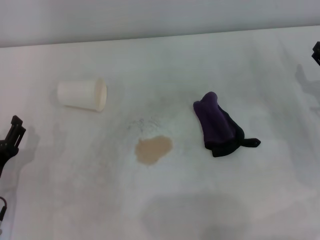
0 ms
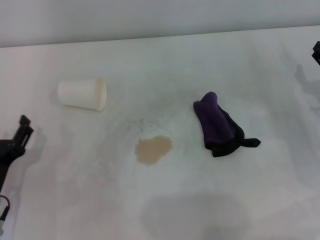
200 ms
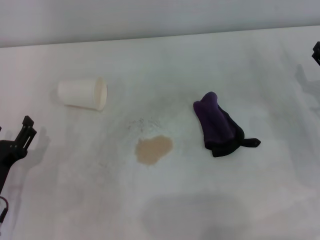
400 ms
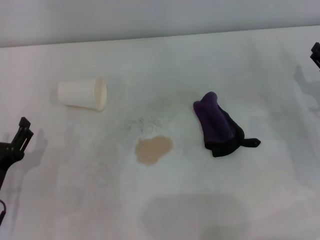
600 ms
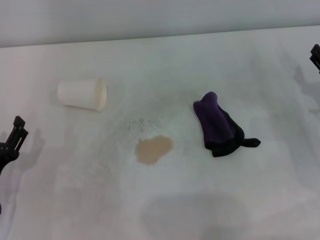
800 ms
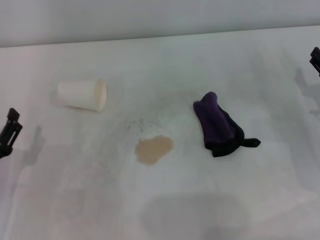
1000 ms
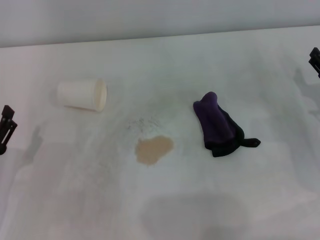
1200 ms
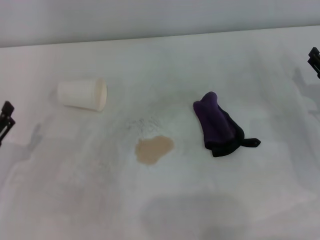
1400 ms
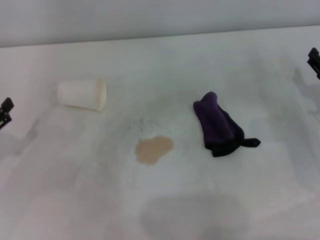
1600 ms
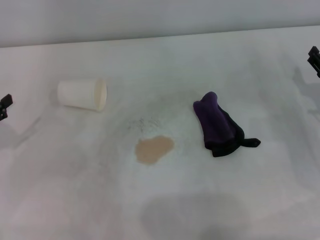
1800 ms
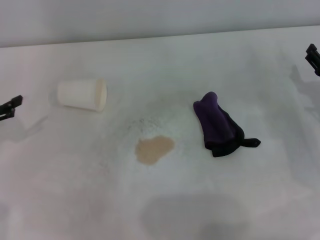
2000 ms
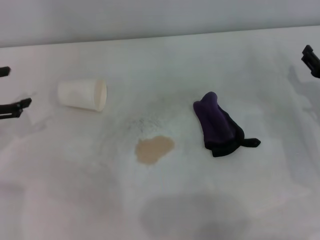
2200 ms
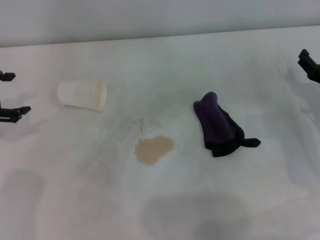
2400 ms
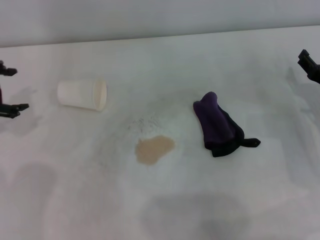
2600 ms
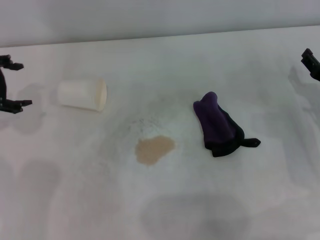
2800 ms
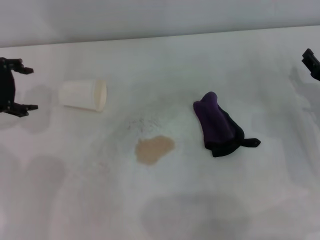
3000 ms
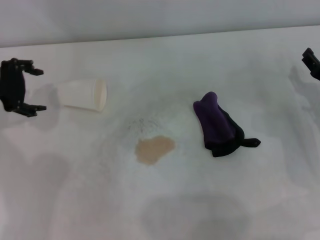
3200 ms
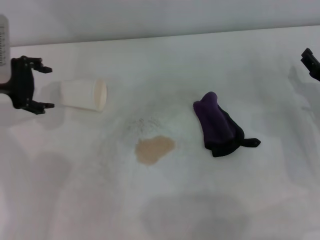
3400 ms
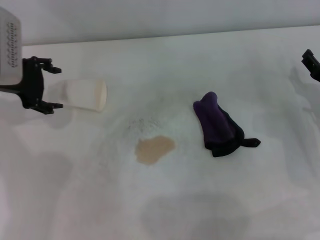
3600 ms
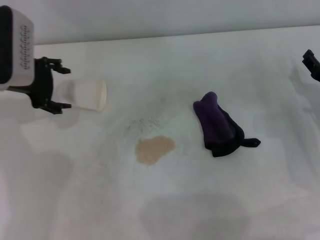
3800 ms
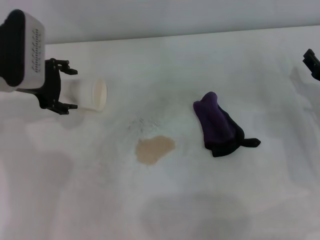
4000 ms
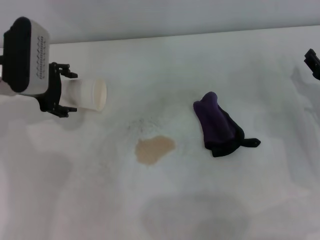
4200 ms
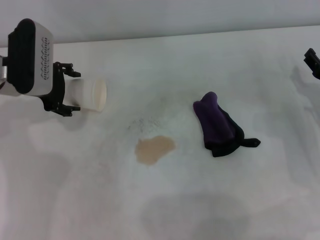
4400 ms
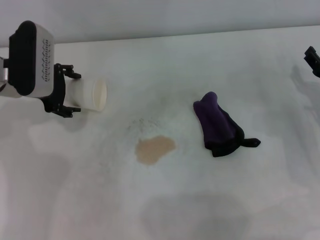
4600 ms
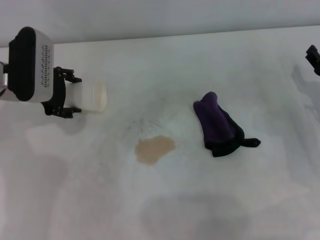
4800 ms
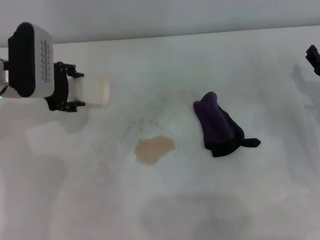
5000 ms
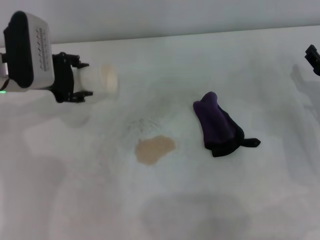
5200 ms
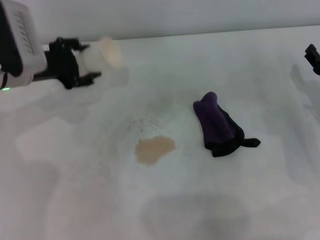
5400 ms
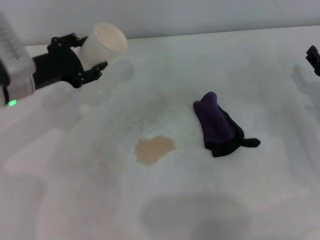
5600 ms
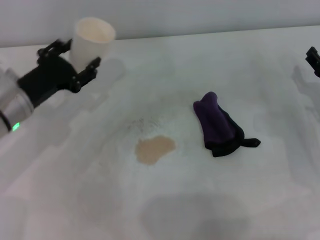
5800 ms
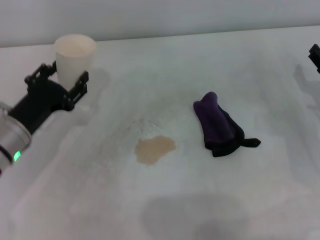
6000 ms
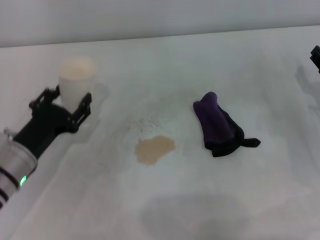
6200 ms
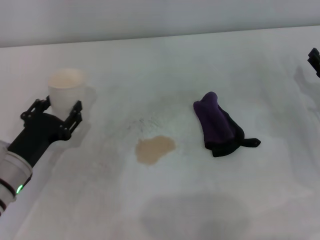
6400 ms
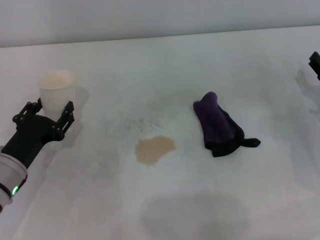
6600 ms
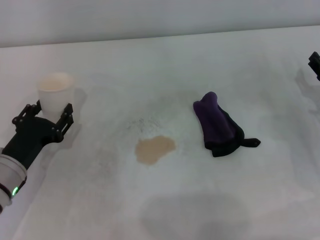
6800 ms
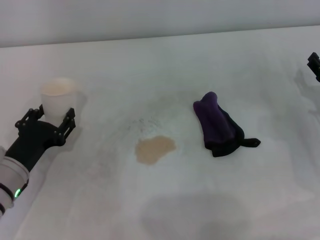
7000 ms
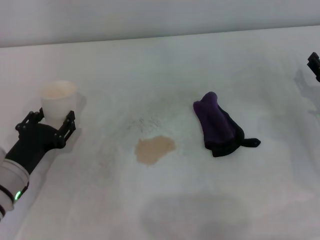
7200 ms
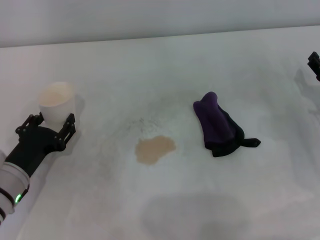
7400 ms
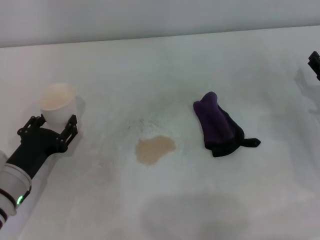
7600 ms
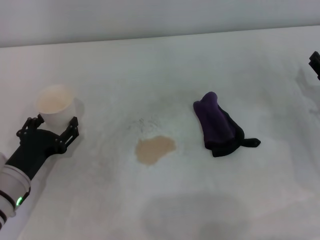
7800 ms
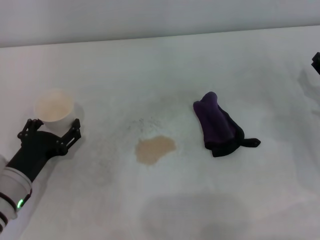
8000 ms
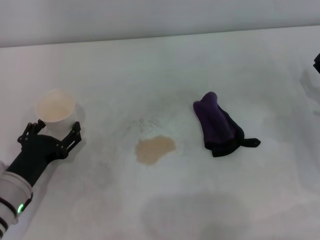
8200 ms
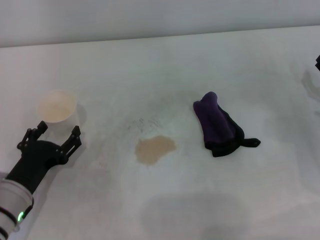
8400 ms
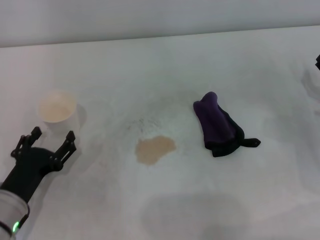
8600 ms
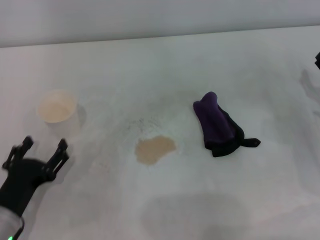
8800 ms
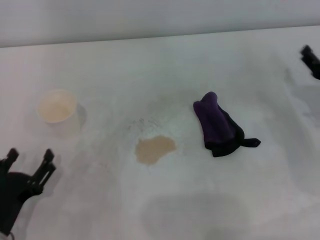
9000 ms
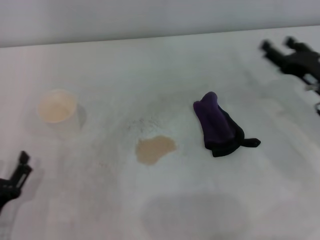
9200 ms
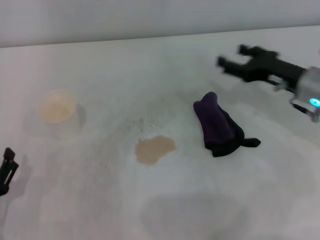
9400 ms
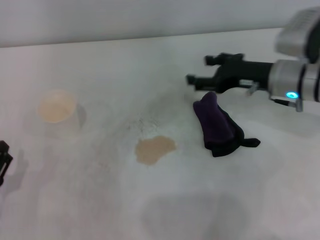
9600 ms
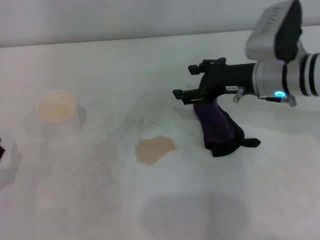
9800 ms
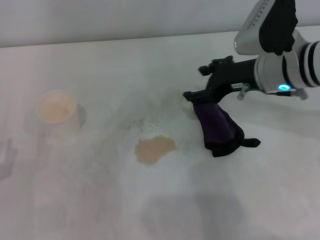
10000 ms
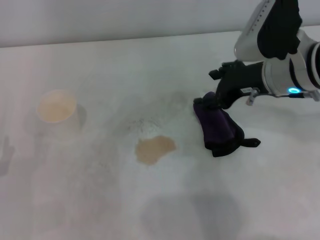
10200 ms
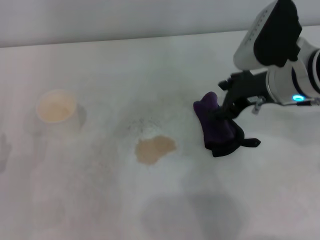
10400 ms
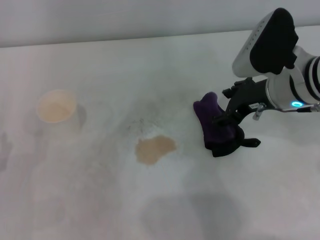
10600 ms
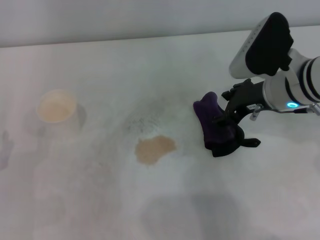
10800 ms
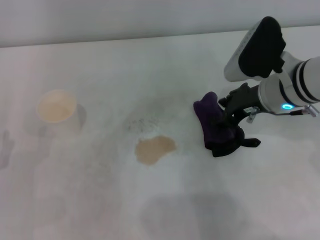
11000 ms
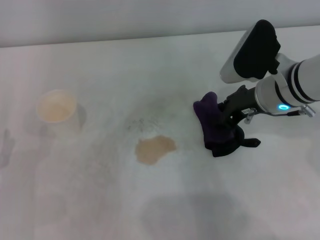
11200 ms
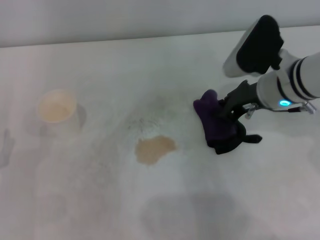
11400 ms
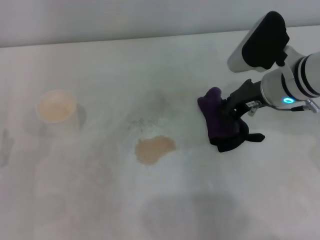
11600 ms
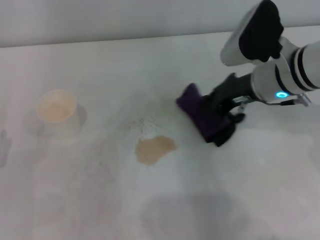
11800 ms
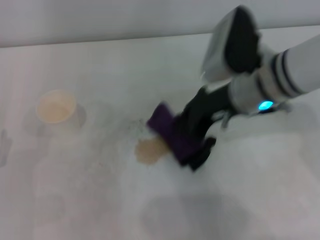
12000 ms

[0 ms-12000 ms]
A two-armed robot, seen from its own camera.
Step, 0 ms to 4600 ms: Grasp the paper cup with the left gripper.
Step, 4800 ms to 8000 ms: Stand the paper cup upright with the left gripper.
Step, 8200 ms to 11000 ms: Grasp the rag with the right gripper.
0 ms to 1600 ms: The left gripper goes roughly 10 cm to the left and upward.
1600 ms to 3000 ms: The left gripper is displaced forward and upward by approximately 20 cm.
3000 ms to 4400 ms: The left gripper moves to the right, roughly 5 cm.
4400 ms to 6000 ms: The left gripper heads backward and downward, covering approximately 15 cm, and closes.
6000 ms to 7600 ms: The left gripper goes some 5 cm backward.
7600 ms to 9000 ms: The left gripper travels backward by approximately 10 cm, and opens its fingers.
9000 ms to 10400 ms: The left gripper shifts by approximately 5 cm, while the right gripper is displaced to the left and upward by about 20 cm.
10400 ms to 12000 ms: The right gripper moves to the left, about 5 cm, and closes.

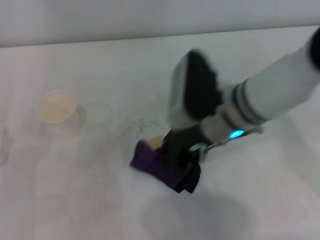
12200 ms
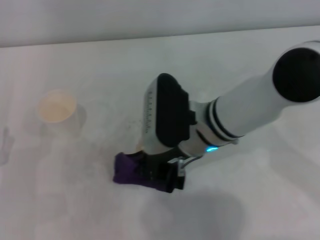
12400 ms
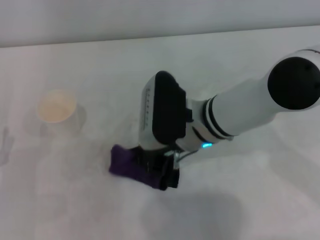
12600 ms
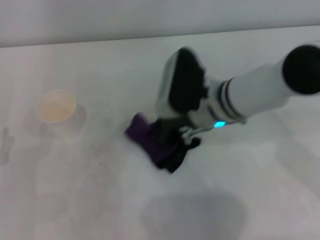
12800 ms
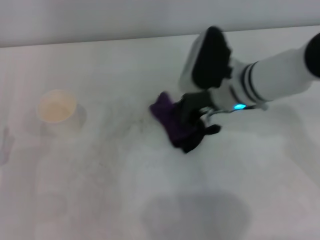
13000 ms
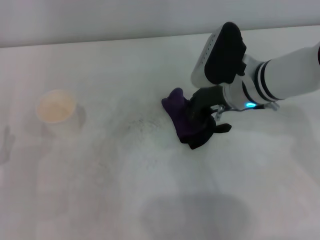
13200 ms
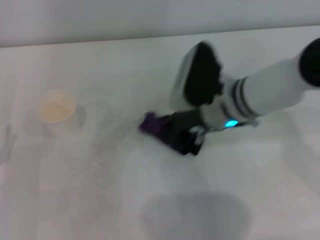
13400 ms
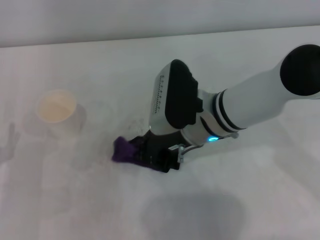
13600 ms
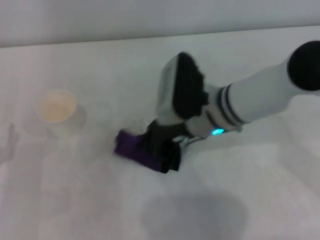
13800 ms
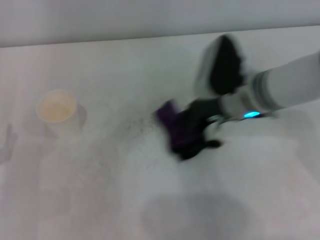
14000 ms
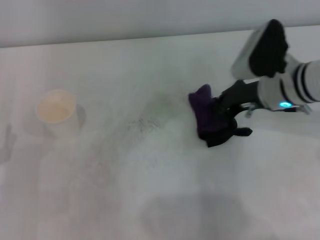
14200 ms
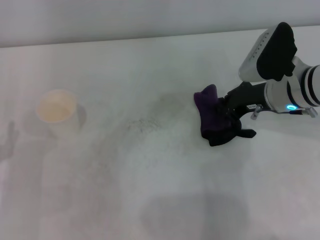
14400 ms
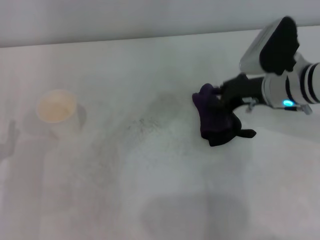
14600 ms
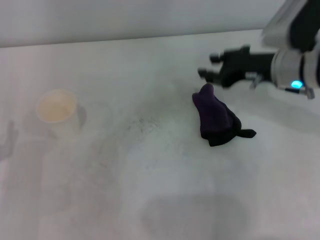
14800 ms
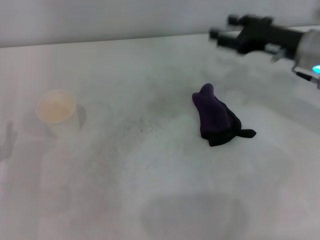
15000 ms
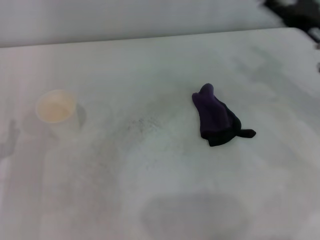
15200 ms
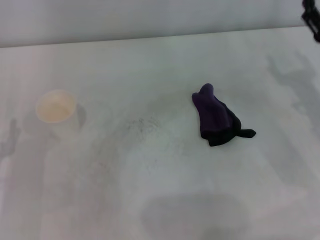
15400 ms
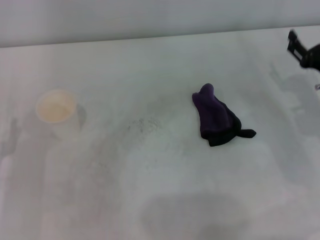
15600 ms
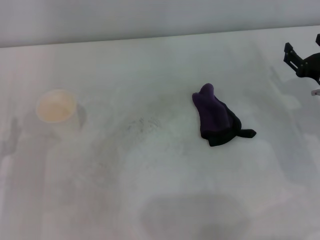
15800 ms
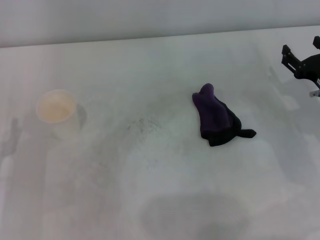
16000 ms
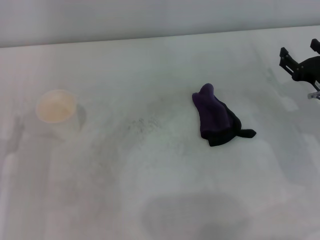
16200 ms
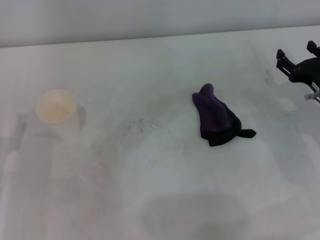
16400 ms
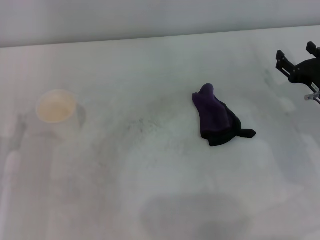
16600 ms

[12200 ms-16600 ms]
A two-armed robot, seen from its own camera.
Step, 12200 ms to 13600 ms: Wipe the stains off the table with the right gripper.
Step, 13800 ms to 14400 ms: Place the rag on the table with the right gripper.
12200 ms to 13600 ms: The right gripper reaches about 5 cm to the right, then returns.
13600 ms to 15200 ms: The right gripper travels to the right by some 20 cm, and opens its fingers.
15200 ms to 16600 ms: The right gripper heads downward, covering roughly 10 cm.

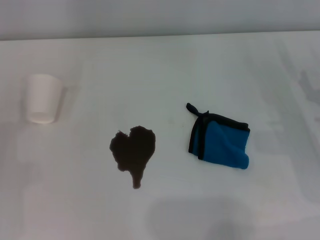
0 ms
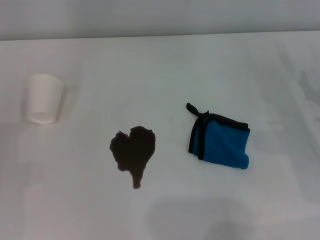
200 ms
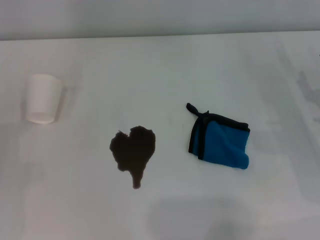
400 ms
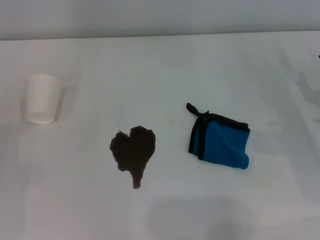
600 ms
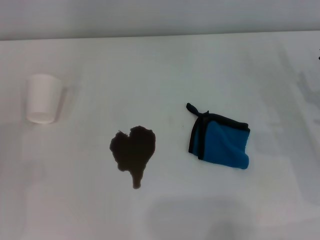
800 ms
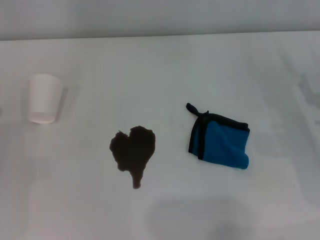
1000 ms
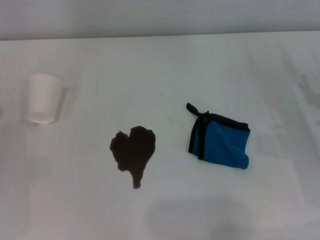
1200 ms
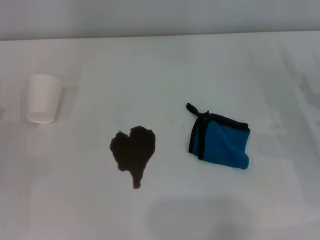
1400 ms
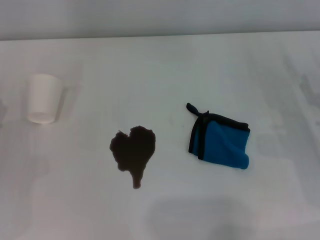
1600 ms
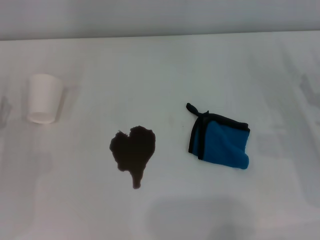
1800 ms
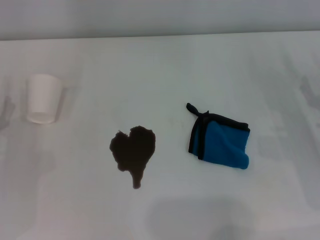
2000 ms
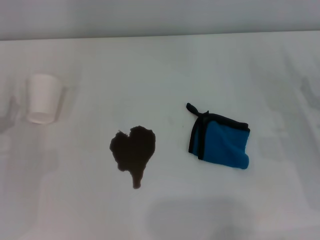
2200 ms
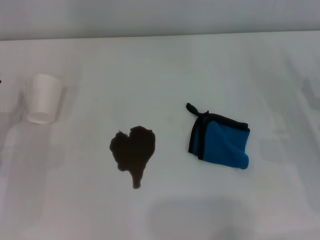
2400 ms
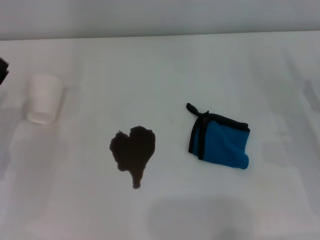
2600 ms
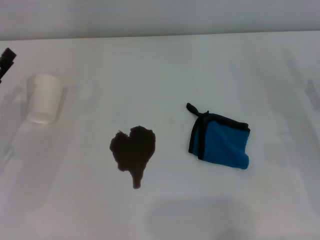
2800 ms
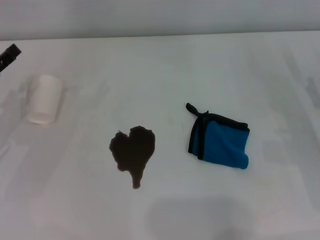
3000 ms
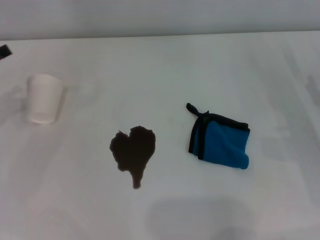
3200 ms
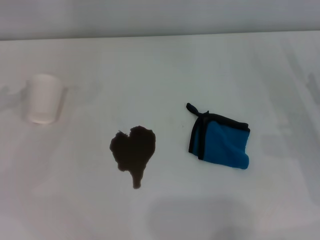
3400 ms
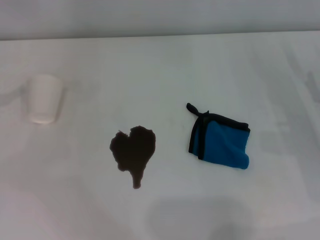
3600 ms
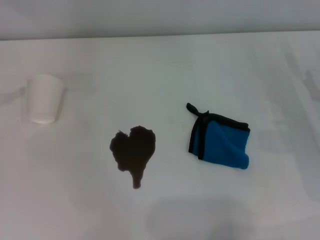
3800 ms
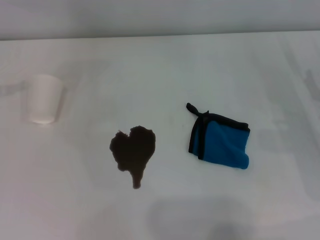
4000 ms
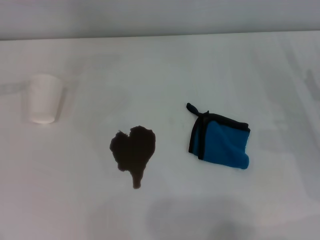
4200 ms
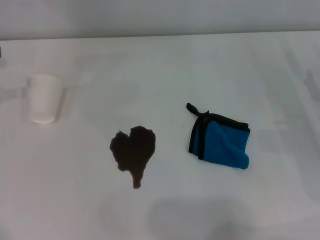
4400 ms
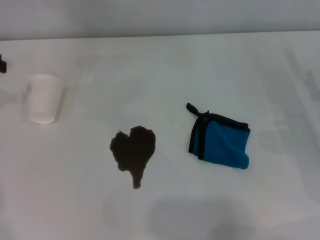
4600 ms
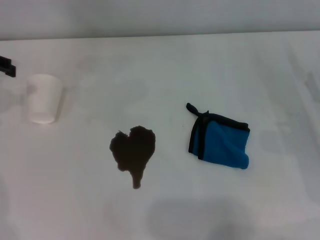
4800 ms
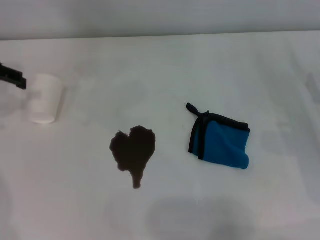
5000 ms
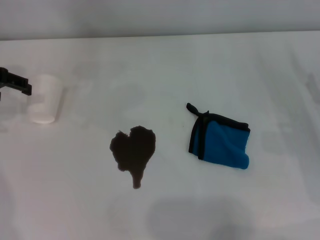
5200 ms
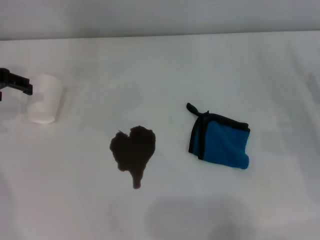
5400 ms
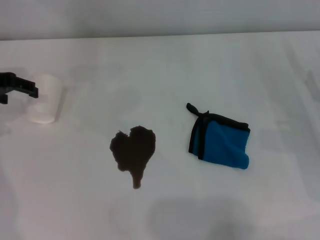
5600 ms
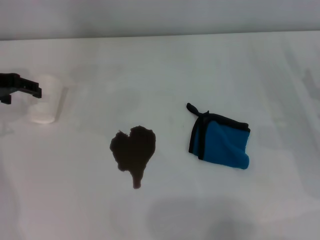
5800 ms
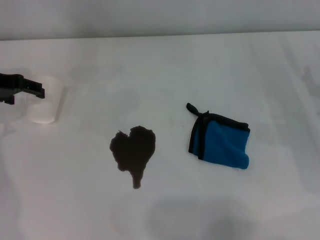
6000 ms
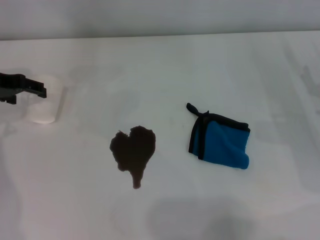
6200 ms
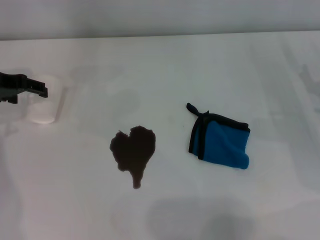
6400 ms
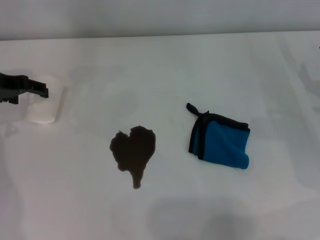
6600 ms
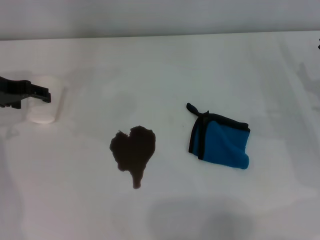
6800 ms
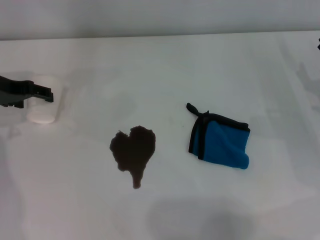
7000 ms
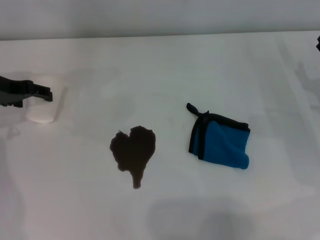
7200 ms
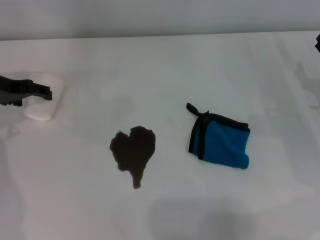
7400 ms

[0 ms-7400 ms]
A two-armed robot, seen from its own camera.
0 ms to 1400 ms: Both grippers stay put.
1400 ms to 3000 ms: The left gripper heads upward, covering roughly 5 cm.
3000 ms to 4400 ms: The left gripper shifts some 20 cm upward and forward.
4400 ms to 6000 ms: The left gripper heads downward and to the right, covering about 10 cm.
